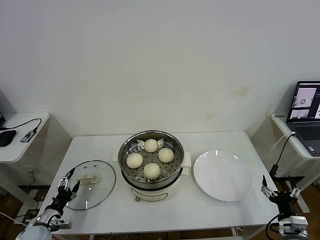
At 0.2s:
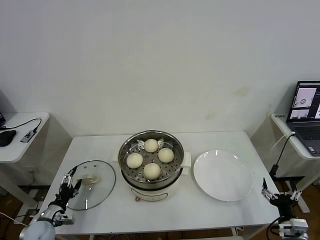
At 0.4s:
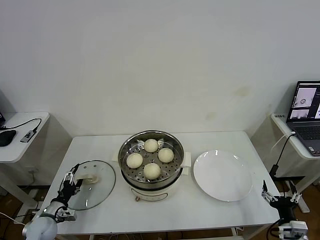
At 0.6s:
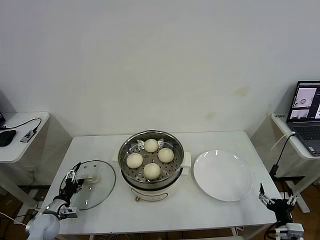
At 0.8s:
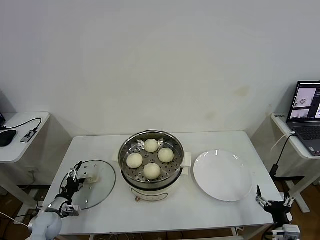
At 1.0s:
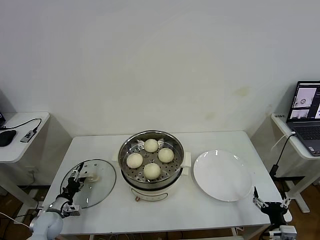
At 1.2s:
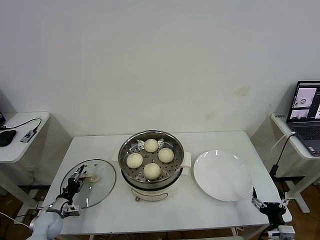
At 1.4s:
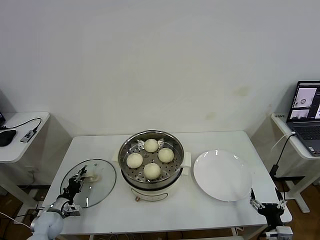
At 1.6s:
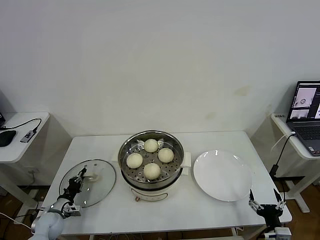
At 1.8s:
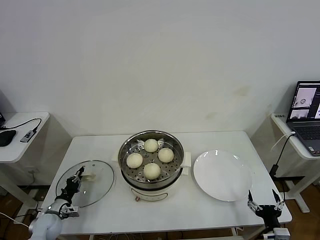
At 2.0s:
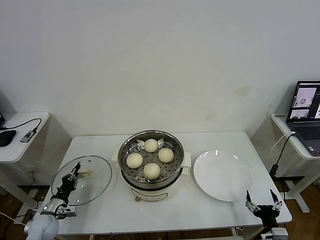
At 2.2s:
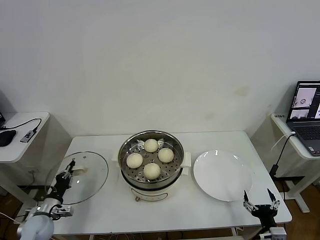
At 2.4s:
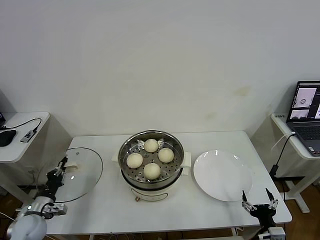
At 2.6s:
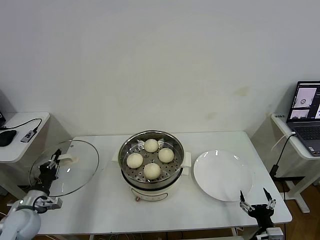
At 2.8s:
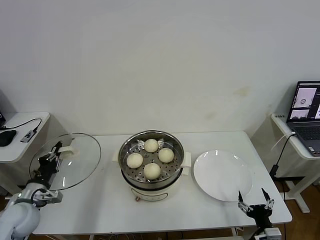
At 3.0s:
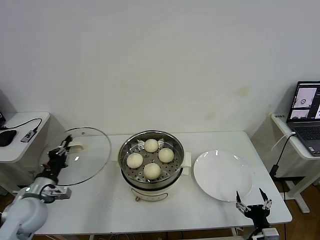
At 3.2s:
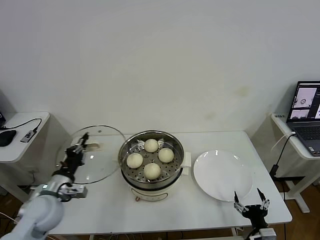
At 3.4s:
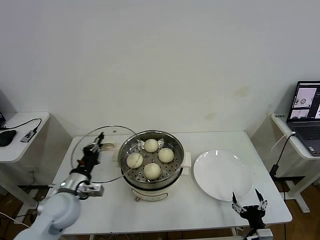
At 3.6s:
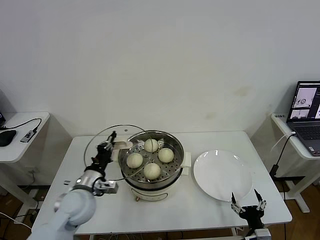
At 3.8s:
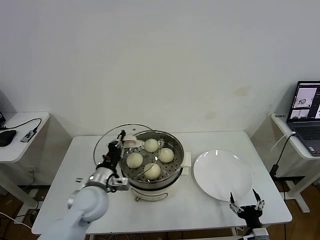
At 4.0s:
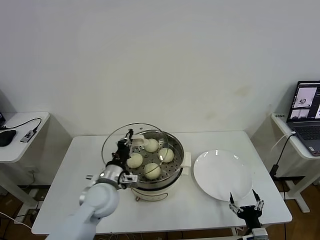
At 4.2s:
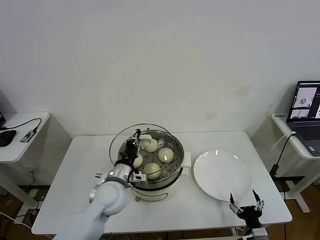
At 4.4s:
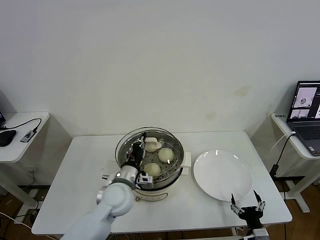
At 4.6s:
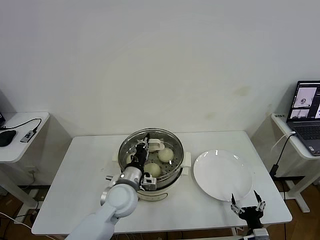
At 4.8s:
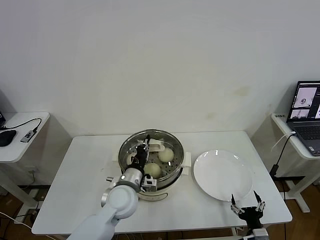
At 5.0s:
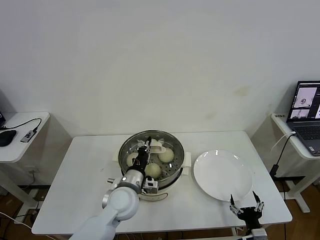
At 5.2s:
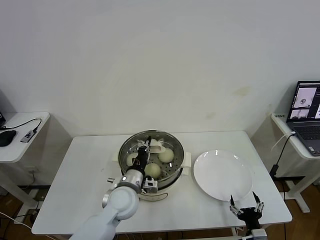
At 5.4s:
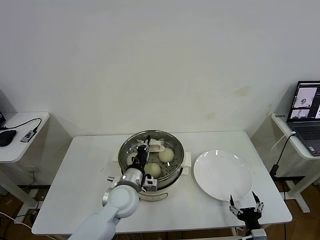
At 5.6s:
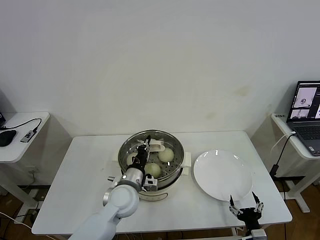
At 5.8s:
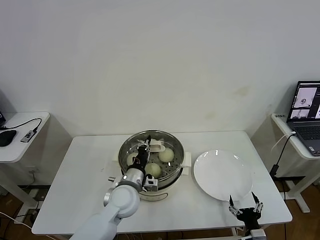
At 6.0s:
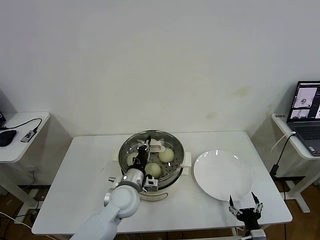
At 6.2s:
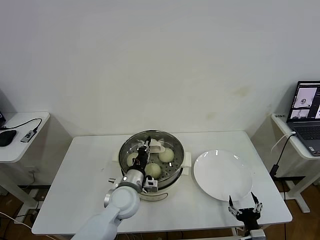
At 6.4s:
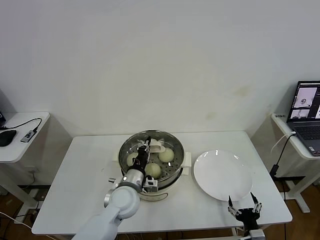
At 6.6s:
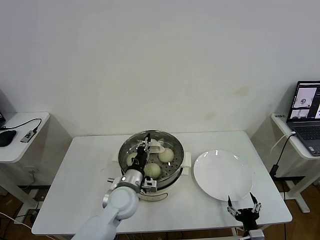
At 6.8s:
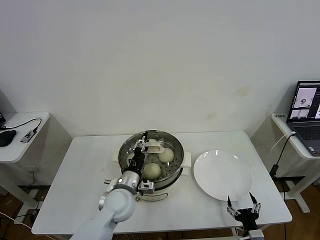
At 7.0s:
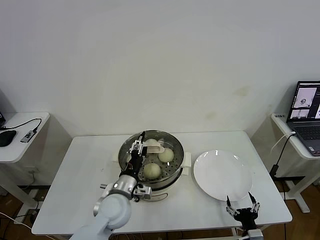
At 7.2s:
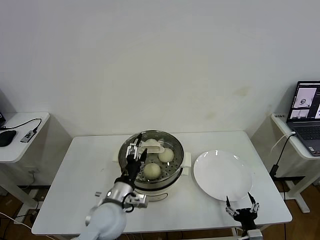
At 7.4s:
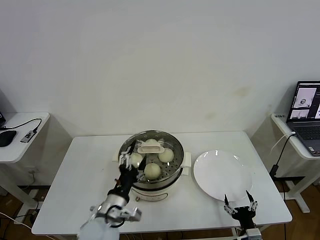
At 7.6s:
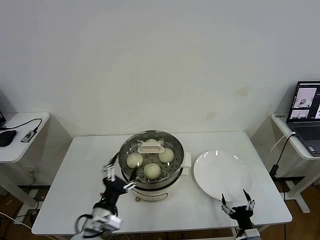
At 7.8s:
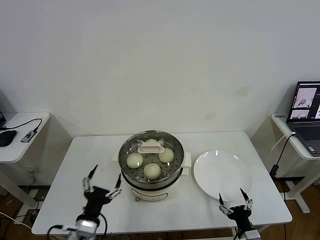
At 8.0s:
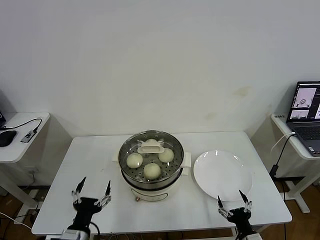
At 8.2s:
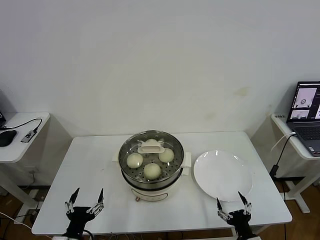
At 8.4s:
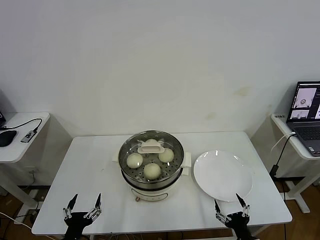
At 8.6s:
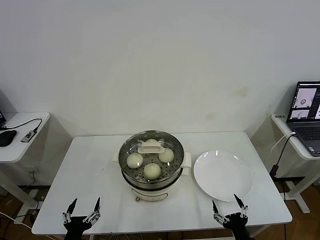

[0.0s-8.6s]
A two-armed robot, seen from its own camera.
Task of the whole recording: take steamed baozi put them in steamer then cover it.
Step, 2.0s to 7.2s: Place the pot lid on the steamer with left gripper.
0.0s to 1.4s: The left gripper travels forward by approximately 5 cm, and closes up.
1.4s to 2.8s: The left gripper is displaced upward by roughly 15 cm.
2.8s to 4.4s: The left gripper heads to the right, covering some 30 cm.
4.4s to 5.8s: The grippers stay close to where they were, moving slightly.
5.8s to 7.2s: The left gripper heads backward, covering some 5 cm, and opens.
7.2s to 8.6s: The right gripper shifts by some 5 cm. Meanwhile the left gripper shifts approximately 25 cm backward, to the left and downward.

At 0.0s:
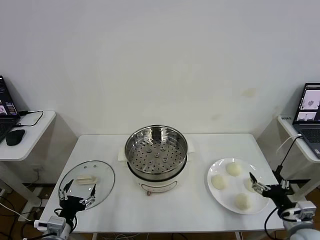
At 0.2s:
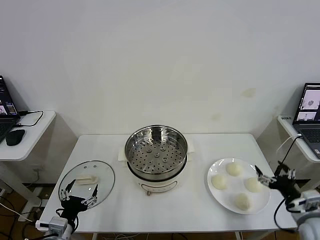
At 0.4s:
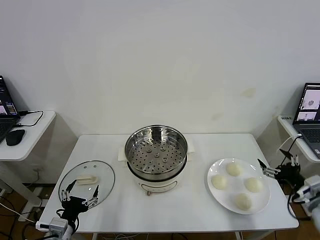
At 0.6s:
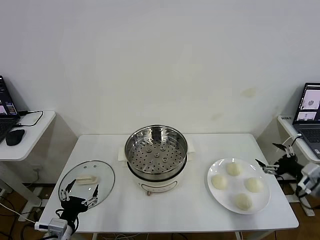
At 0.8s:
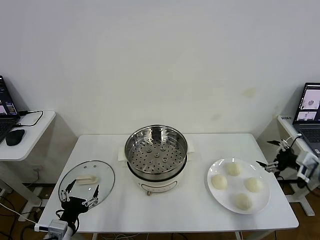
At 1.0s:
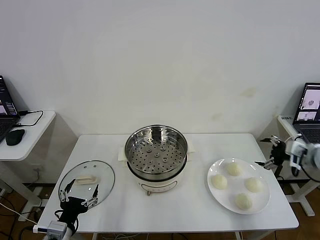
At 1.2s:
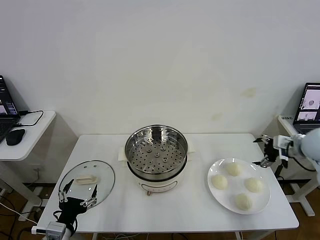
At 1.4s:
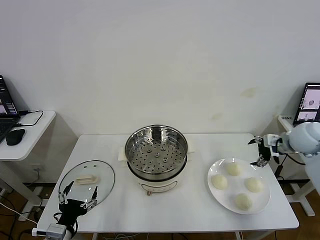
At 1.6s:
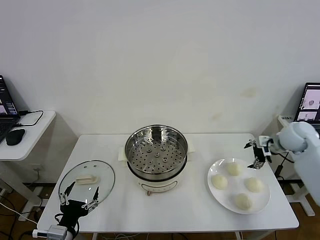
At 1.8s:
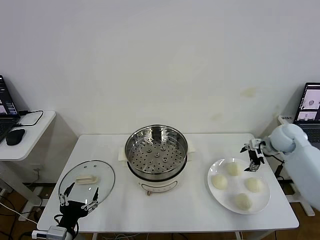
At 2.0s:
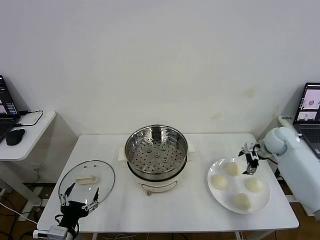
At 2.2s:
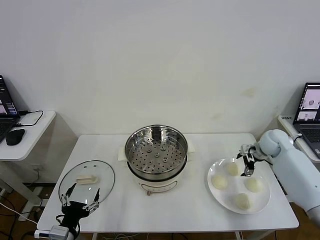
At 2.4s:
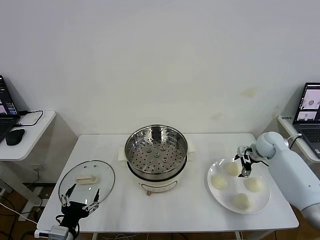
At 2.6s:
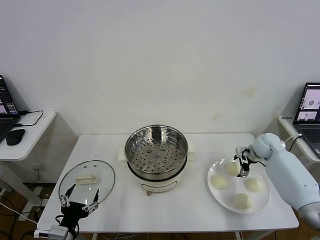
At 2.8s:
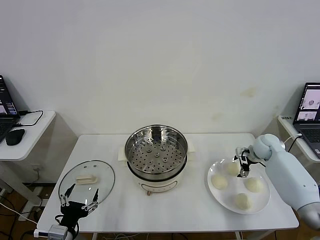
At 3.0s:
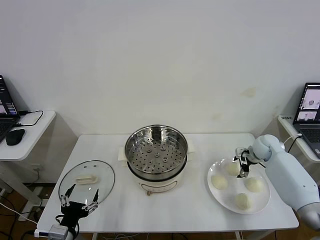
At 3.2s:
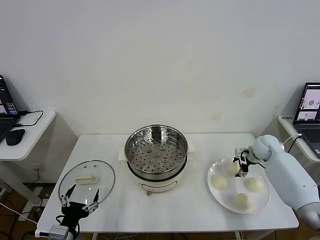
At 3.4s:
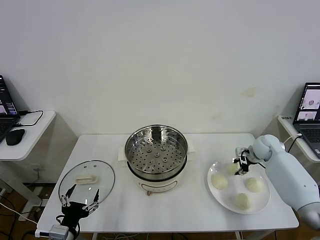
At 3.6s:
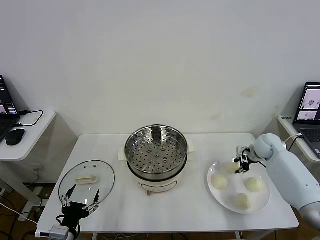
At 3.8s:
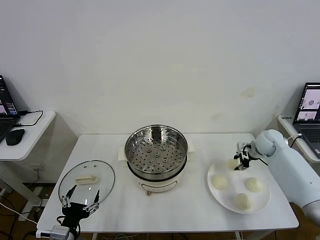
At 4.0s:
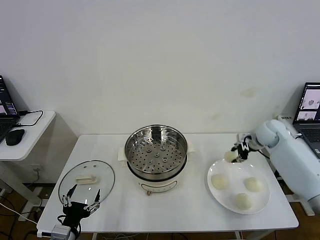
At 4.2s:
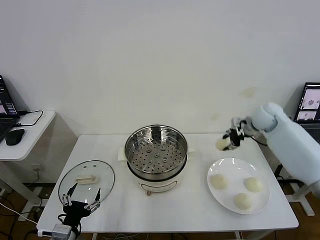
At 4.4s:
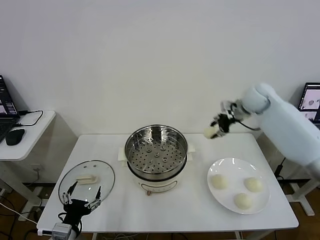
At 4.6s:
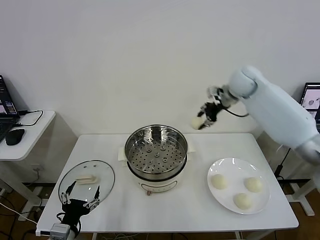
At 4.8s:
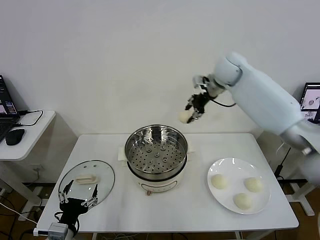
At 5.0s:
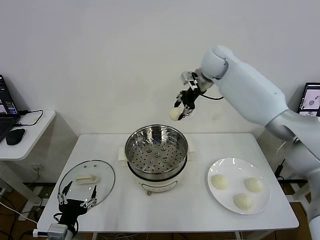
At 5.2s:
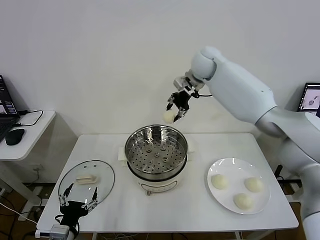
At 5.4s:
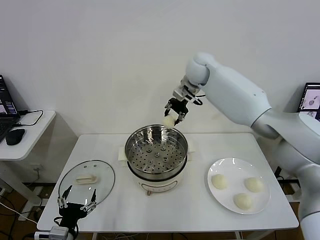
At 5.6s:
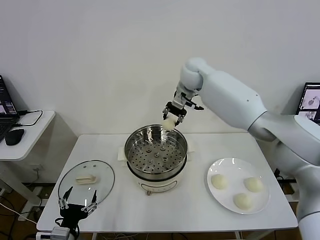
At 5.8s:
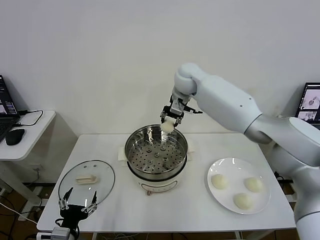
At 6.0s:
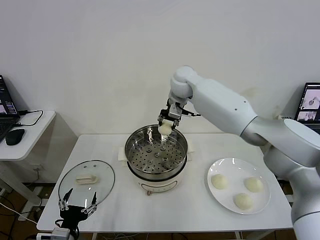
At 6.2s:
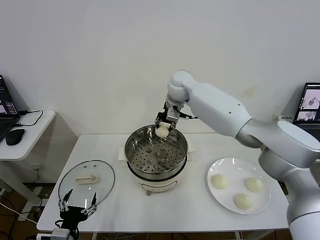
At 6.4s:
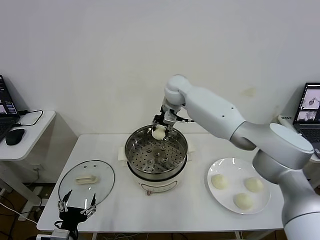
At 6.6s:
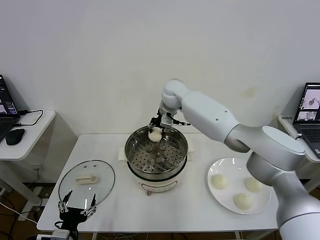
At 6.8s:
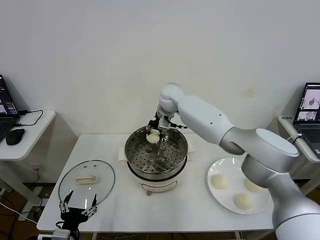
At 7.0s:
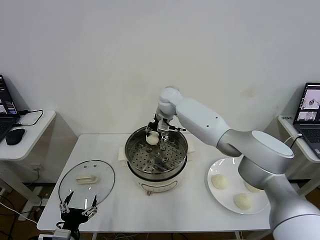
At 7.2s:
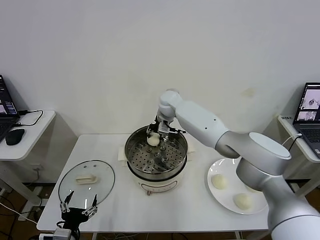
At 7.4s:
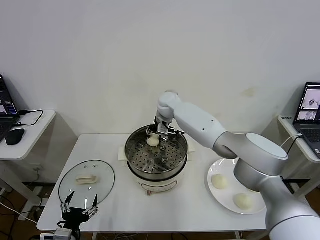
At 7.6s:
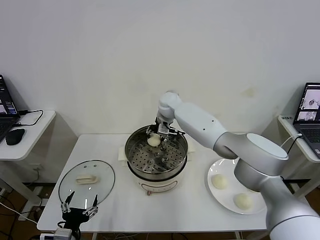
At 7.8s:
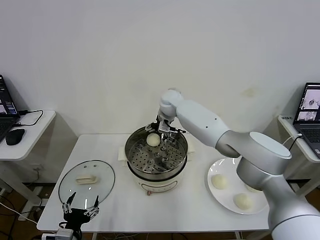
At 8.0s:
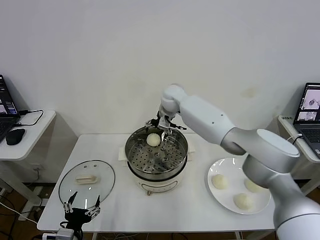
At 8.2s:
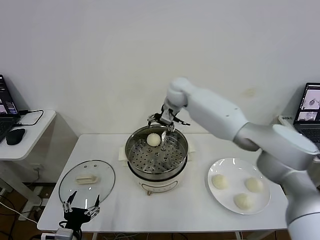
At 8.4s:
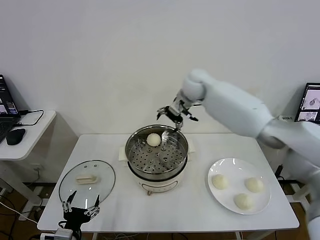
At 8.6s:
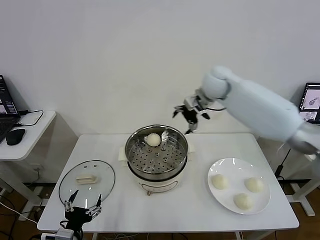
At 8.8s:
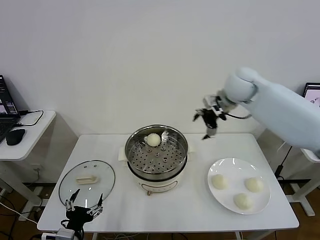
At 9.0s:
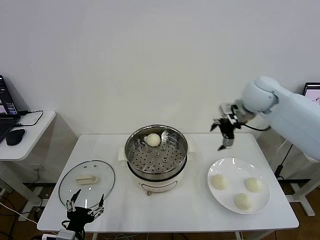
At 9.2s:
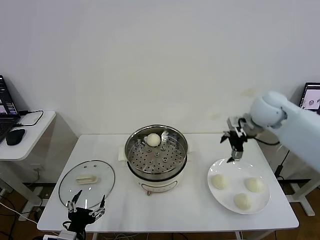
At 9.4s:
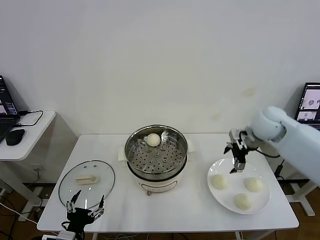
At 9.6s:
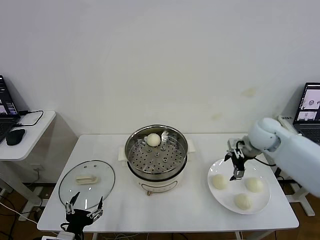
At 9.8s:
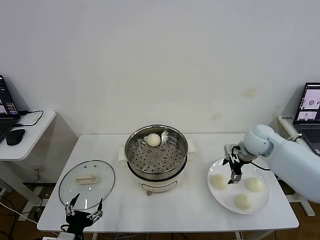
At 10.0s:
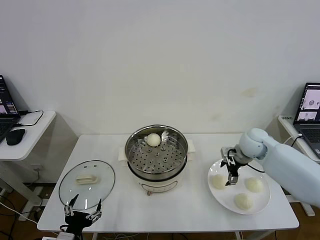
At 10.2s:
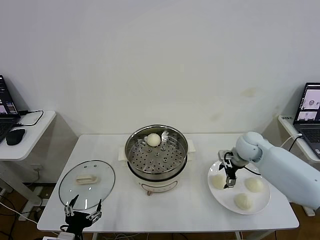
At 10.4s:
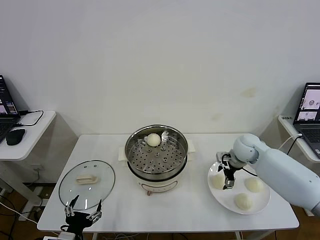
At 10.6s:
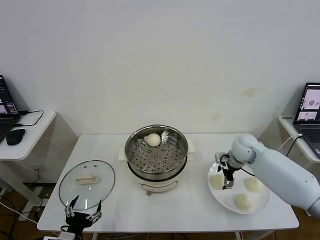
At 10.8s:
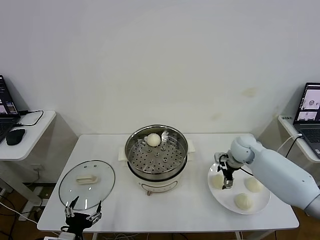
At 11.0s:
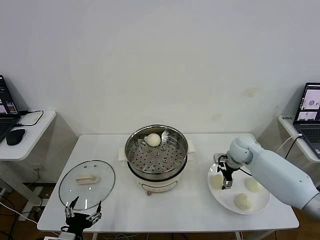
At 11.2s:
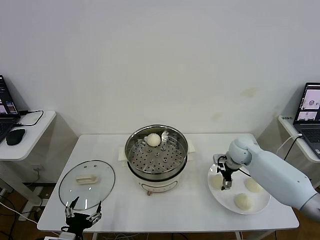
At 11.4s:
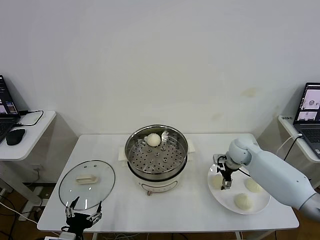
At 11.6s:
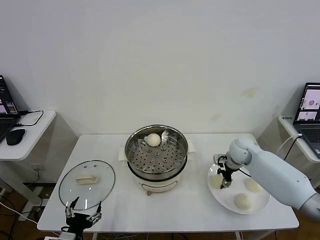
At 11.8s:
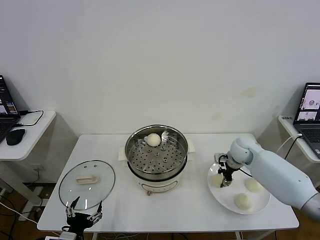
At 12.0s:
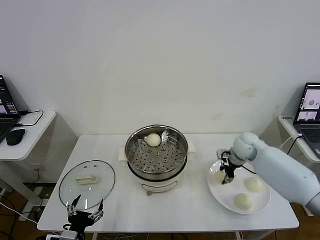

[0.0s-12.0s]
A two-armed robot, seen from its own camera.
Task of the whole recording: take steamed baozi put them in steamer then cover it.
Step, 0.0s to 3.6s: Grasp the baozi in the plate with right gripper.
Step, 3.8s to 7.8s: Place the baozi on the steamer with right gripper.
Step, 8.0s to 11.6s: Grasp the baozi in the plate with right gripper.
1.6s to 3.0s: The right gripper travels downward by some 10 cm.
3.0s to 4.4s: The right gripper moves upward and to the left, roughly 20 cm, and closes.
4.4s to 6.0s: The right gripper goes some 25 cm to the left.
6.0s to 7.6s: The right gripper shifts about 10 cm downward.
7.6s to 9.0s: The right gripper travels to the right, upward and backward by approximately 30 cm, and opens up.
9.0s to 10.4s: The right gripper shifts roughly 20 cm downward.
10.4s to 12.0s: The right gripper closes its fingers.

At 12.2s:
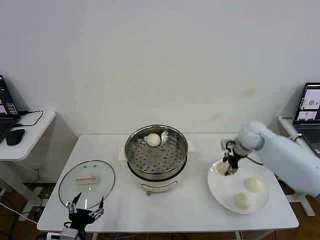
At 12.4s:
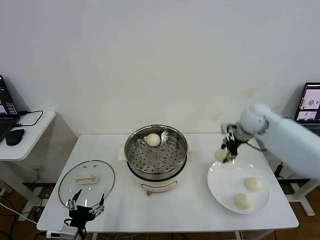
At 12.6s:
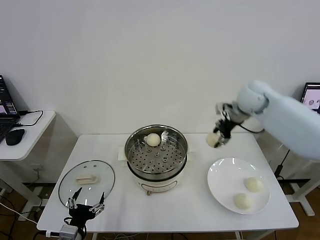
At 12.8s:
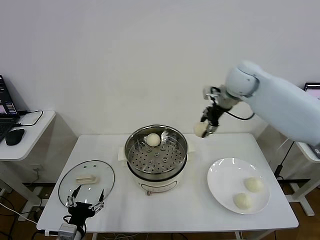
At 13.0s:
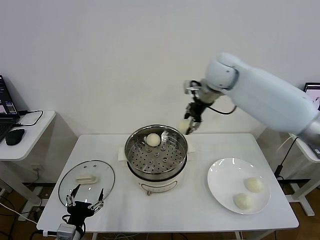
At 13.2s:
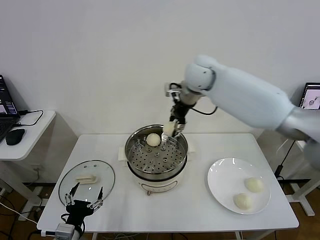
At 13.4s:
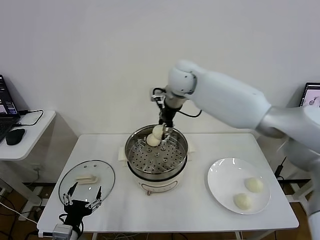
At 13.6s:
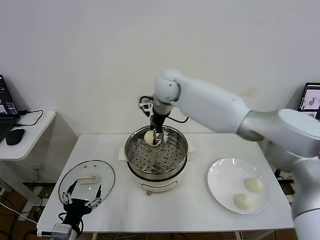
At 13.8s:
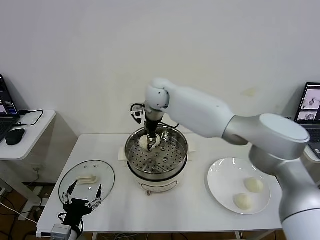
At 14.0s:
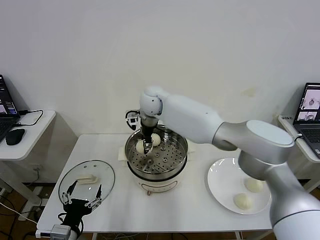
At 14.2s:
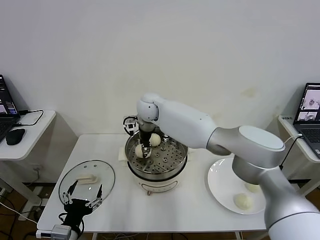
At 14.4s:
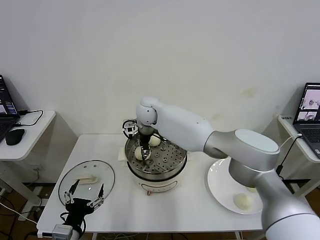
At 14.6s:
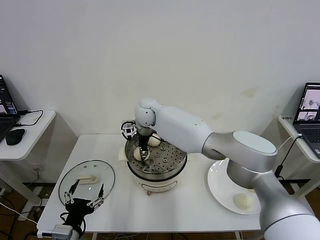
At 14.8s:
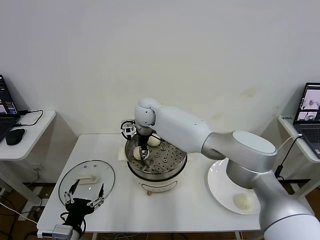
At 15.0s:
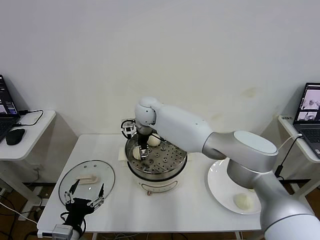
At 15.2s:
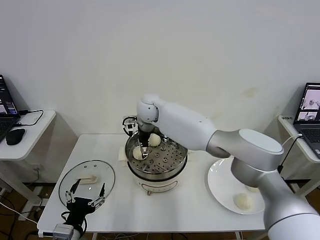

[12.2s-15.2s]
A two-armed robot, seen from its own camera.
Task of the whole recording: take steamed baozi put them in steamer then cover it.
Step, 12.2s to 15.2s: Place the baozi on the steamer with right gripper.
12.2s to 13.8s: The right gripper moves to the left, approximately 35 cm.
13.8s to 15.2s: The right gripper heads downward, covering approximately 5 cm, and opens its fingers.
